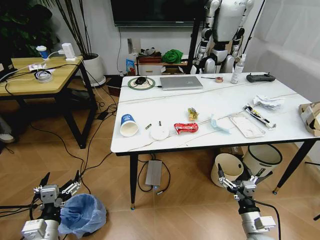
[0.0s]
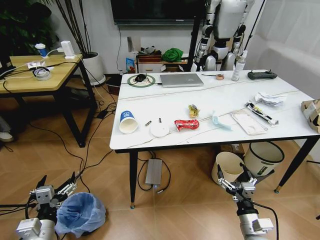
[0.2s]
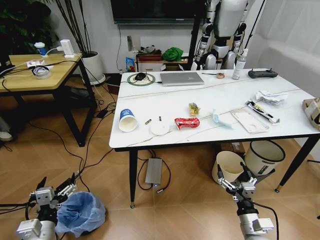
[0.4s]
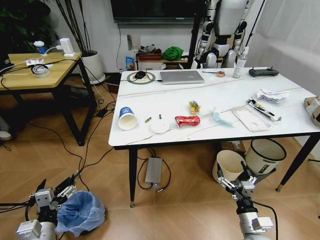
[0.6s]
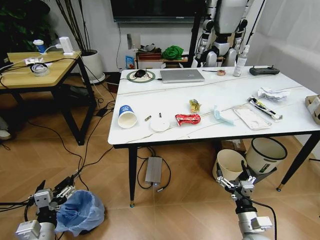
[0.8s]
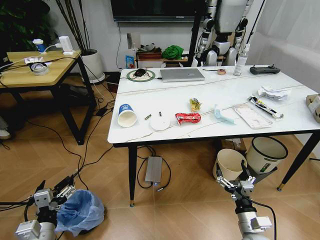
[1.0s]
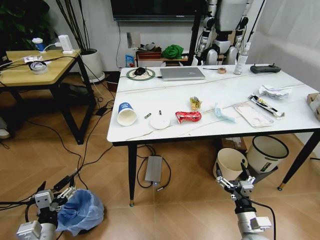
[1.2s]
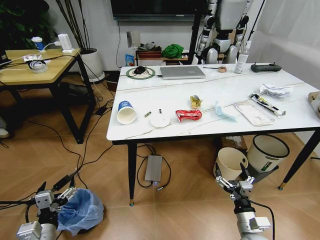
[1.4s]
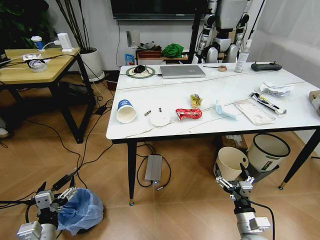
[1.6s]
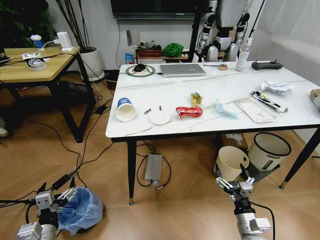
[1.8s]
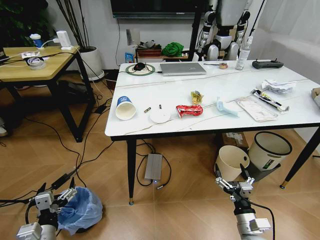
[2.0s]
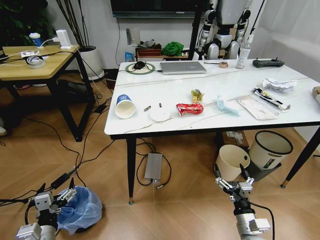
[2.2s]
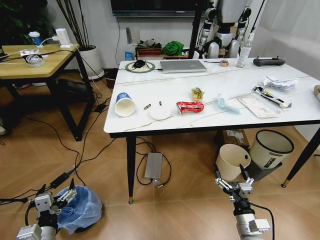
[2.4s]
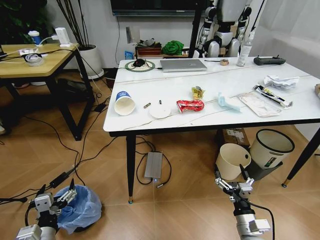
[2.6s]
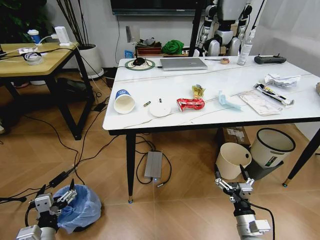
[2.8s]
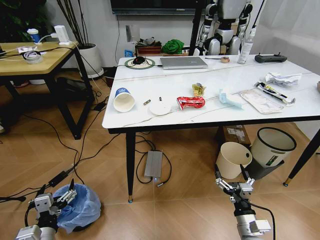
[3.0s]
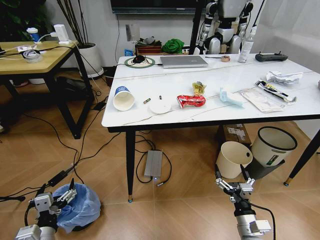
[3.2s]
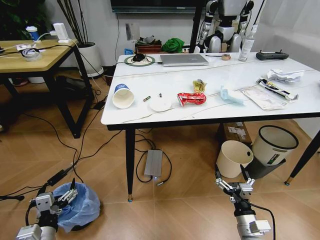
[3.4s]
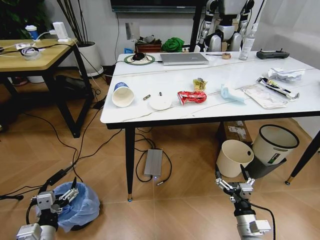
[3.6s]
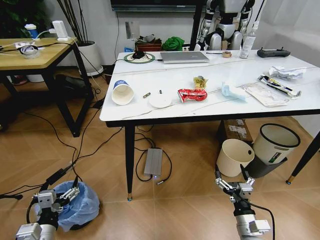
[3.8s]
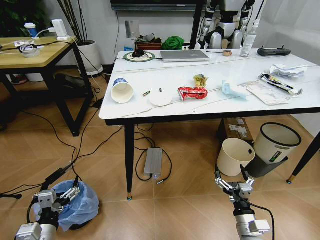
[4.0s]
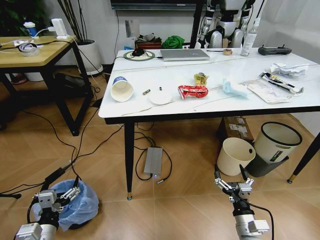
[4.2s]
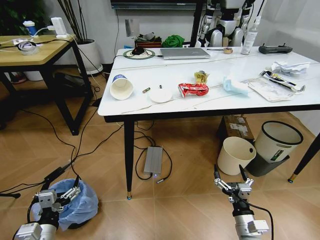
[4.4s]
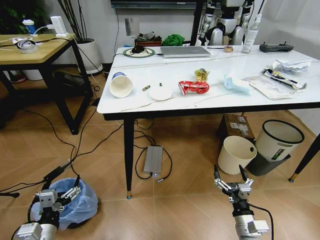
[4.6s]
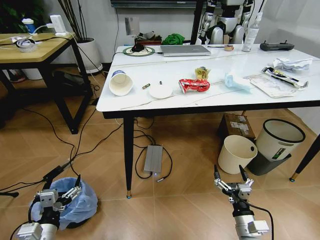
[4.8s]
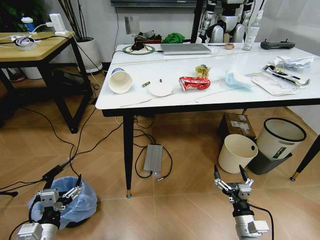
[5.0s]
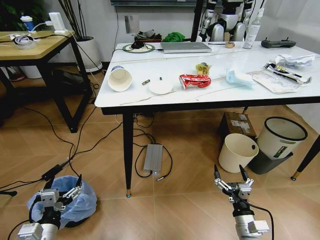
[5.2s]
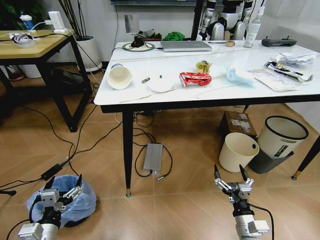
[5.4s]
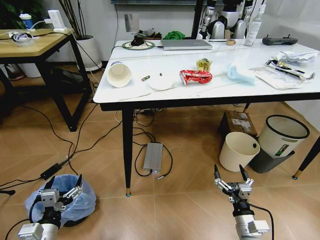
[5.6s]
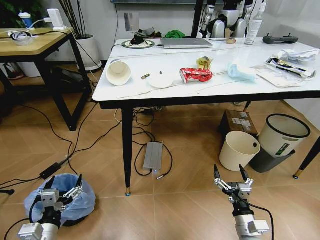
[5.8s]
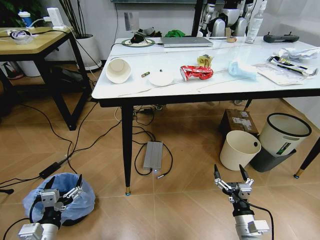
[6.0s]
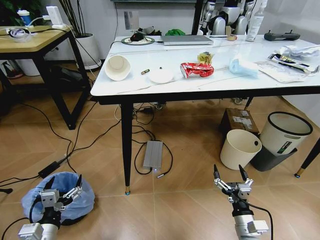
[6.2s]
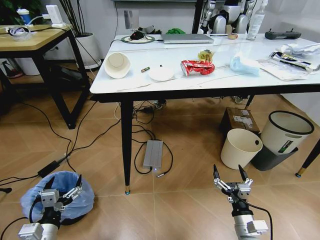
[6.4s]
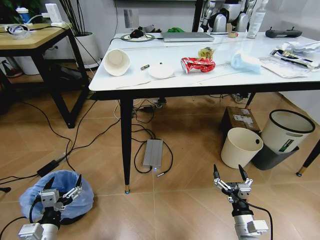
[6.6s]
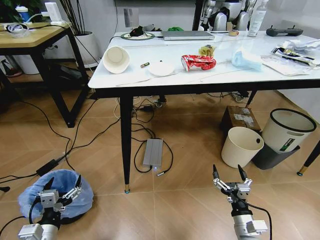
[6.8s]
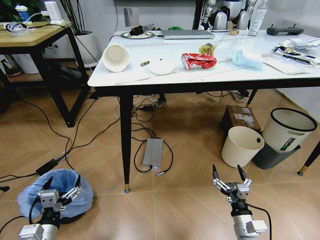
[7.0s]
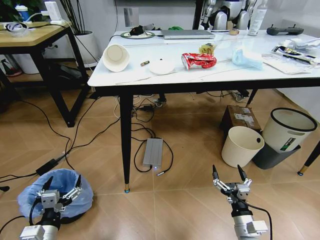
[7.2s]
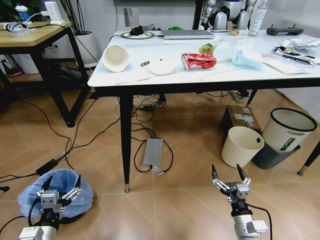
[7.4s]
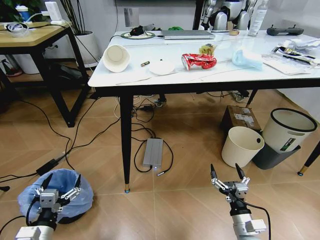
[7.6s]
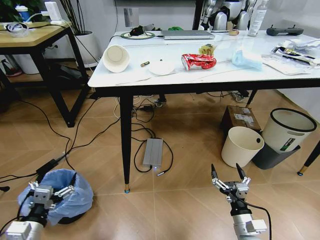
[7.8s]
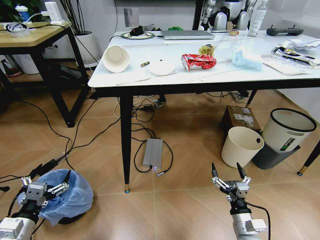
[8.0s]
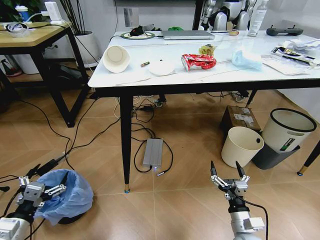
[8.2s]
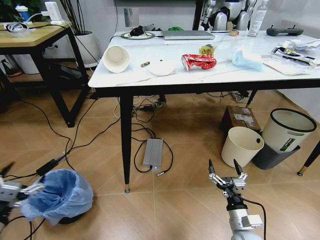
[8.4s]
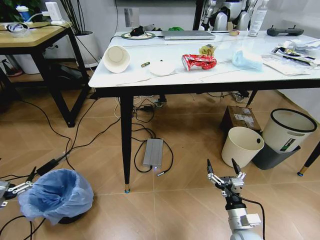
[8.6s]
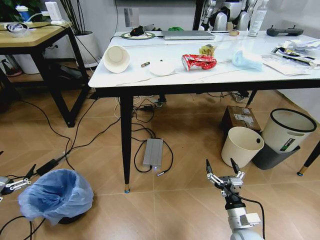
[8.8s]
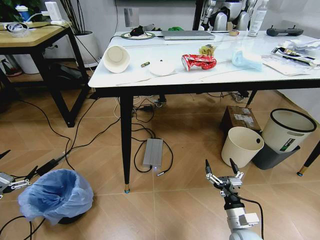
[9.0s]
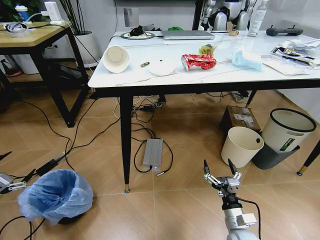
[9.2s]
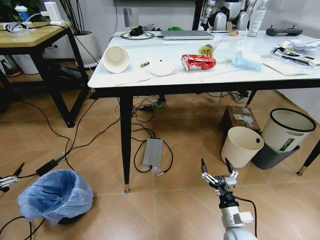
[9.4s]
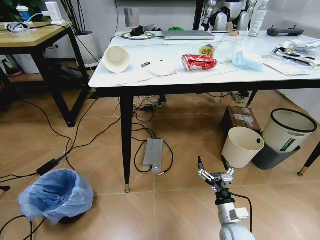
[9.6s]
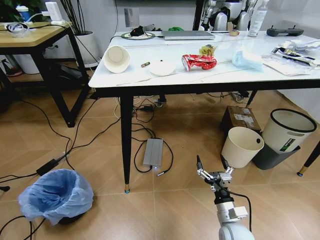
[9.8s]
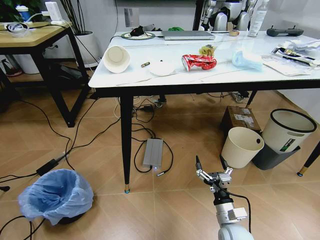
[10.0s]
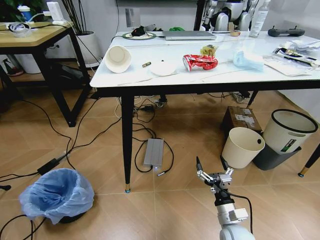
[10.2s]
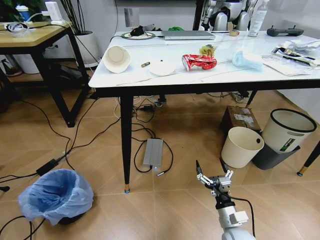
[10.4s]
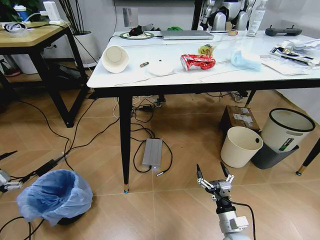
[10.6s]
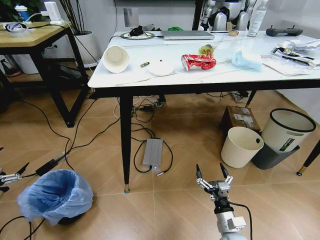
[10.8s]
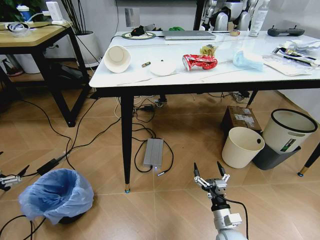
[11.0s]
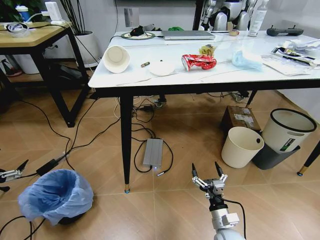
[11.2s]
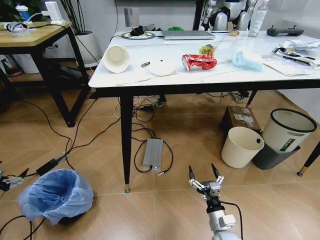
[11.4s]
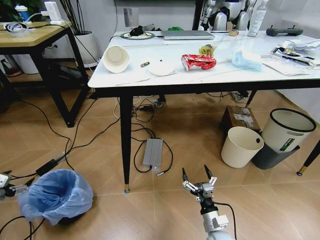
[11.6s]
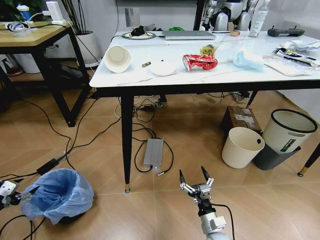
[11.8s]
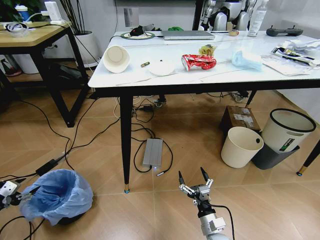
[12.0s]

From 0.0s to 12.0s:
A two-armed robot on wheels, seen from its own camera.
Task of the whole recording: Pick up the trash bin and place the trash from the table into it.
From 7.6s to 9.0s: The left gripper goes roughly 20 cm to the left and upward.
From 9.0s to 10.4s: The left gripper goes some 15 cm to the left and upward.
From 10.4s to 12.0s: The left gripper travels downward by approximately 15 cm. The right gripper moves to the left, roughly 5 cm.

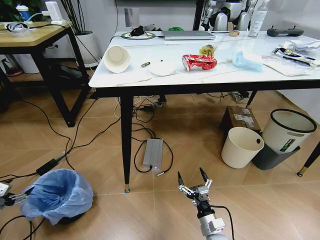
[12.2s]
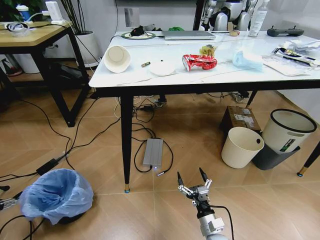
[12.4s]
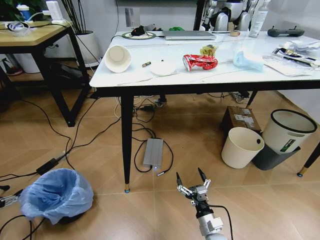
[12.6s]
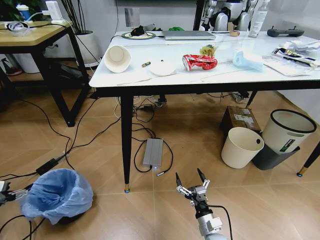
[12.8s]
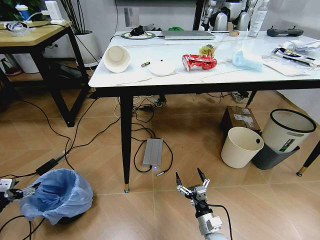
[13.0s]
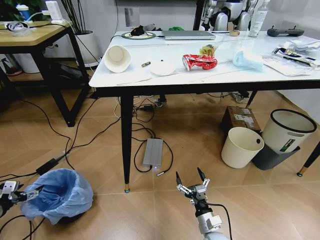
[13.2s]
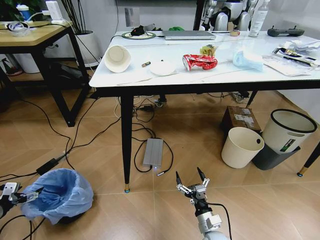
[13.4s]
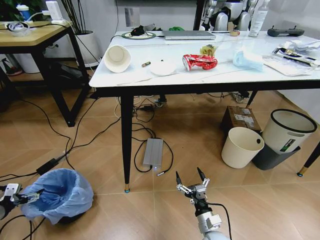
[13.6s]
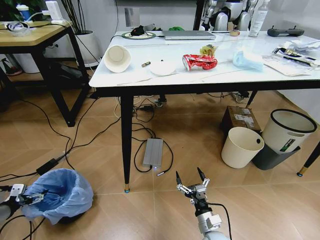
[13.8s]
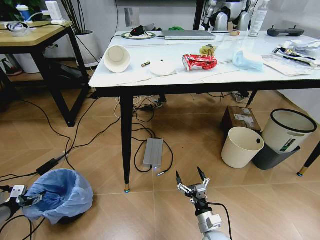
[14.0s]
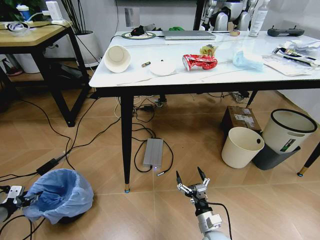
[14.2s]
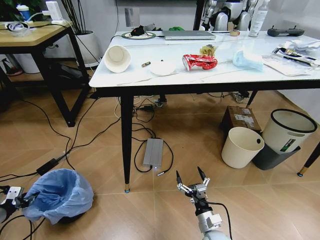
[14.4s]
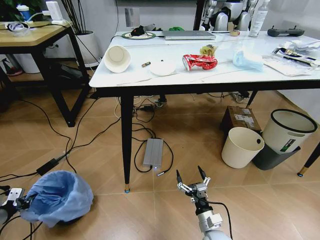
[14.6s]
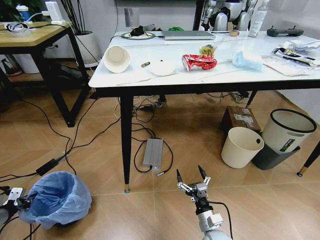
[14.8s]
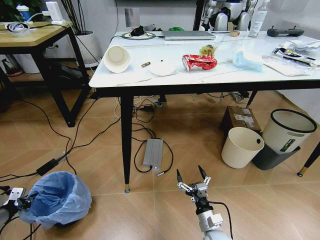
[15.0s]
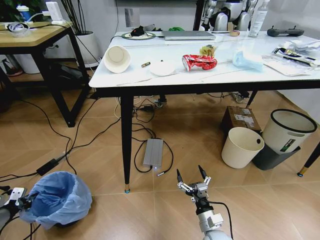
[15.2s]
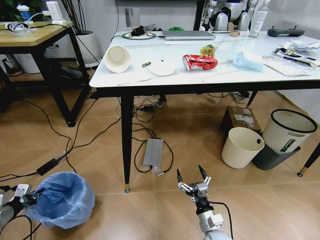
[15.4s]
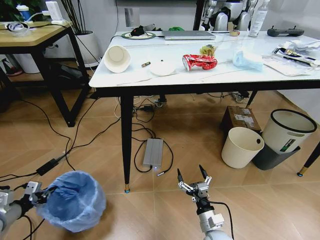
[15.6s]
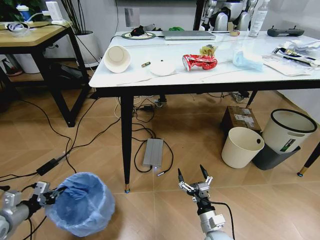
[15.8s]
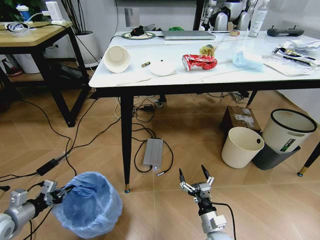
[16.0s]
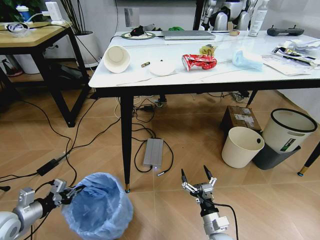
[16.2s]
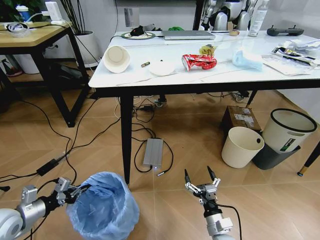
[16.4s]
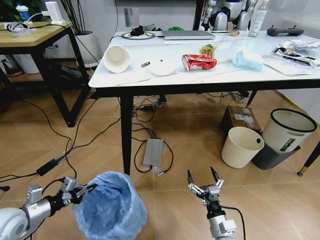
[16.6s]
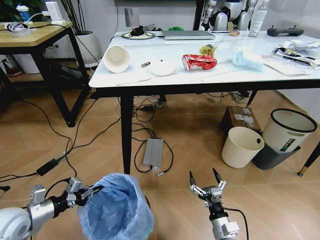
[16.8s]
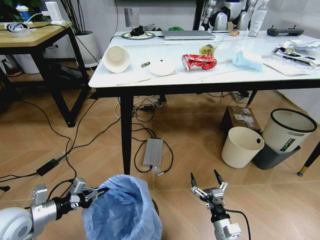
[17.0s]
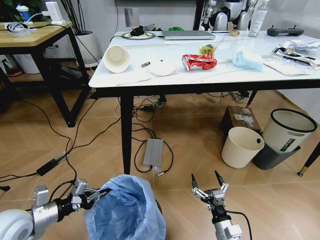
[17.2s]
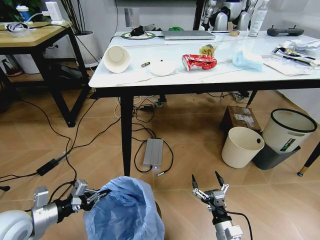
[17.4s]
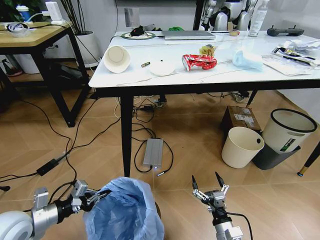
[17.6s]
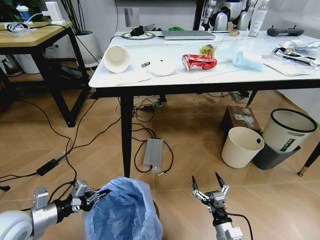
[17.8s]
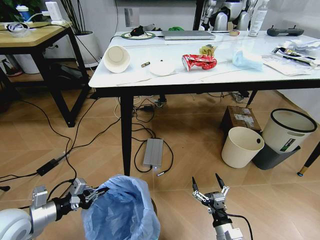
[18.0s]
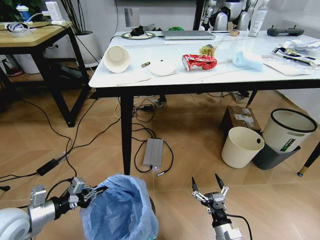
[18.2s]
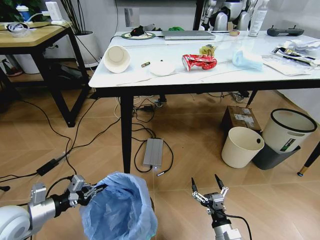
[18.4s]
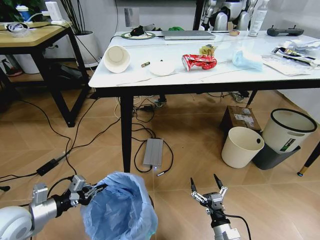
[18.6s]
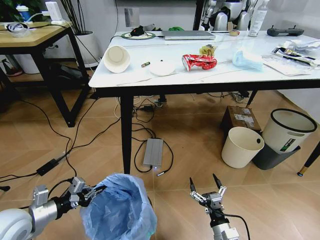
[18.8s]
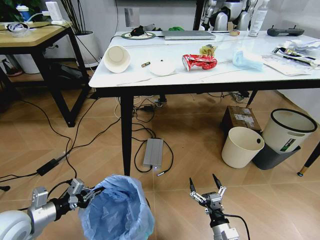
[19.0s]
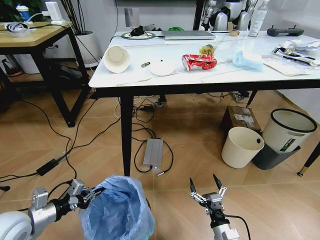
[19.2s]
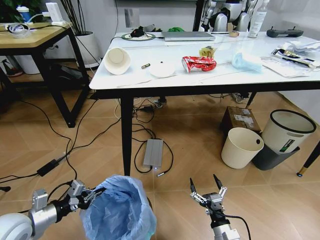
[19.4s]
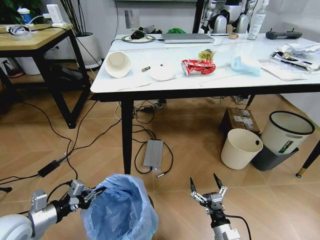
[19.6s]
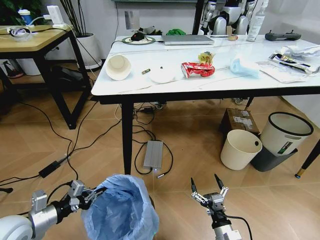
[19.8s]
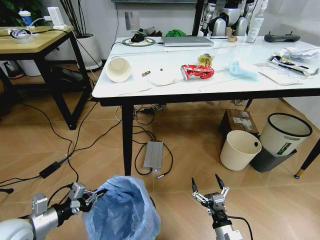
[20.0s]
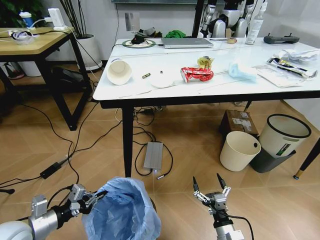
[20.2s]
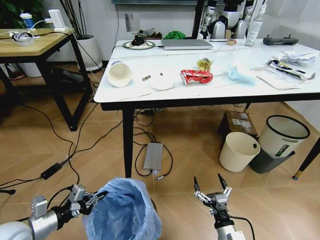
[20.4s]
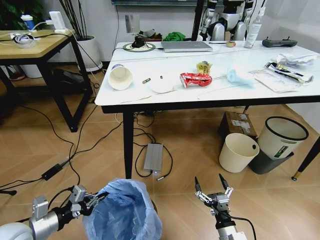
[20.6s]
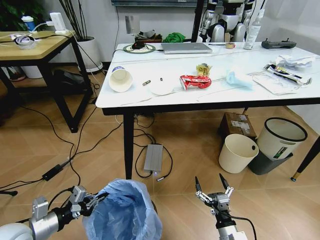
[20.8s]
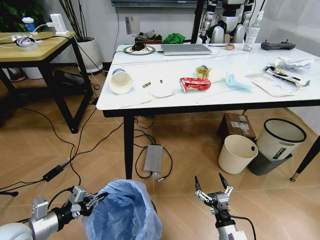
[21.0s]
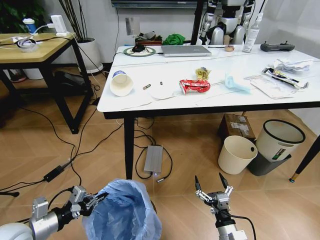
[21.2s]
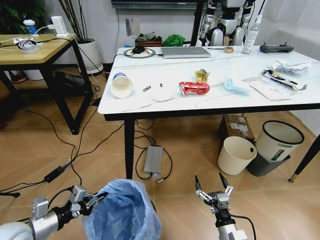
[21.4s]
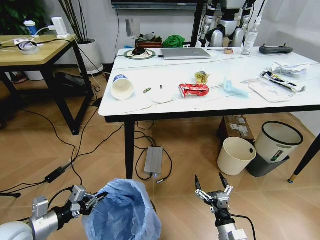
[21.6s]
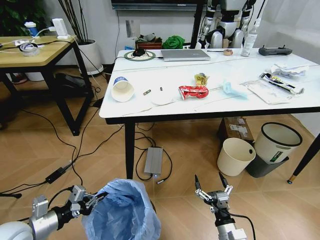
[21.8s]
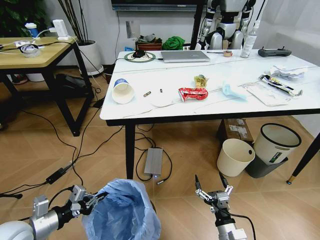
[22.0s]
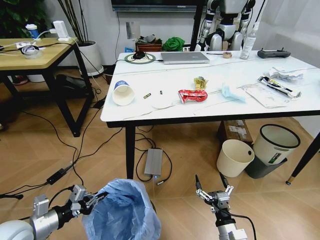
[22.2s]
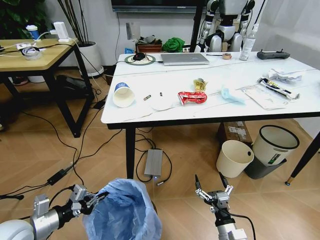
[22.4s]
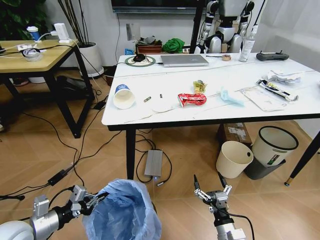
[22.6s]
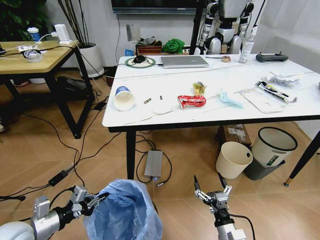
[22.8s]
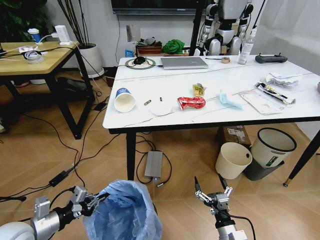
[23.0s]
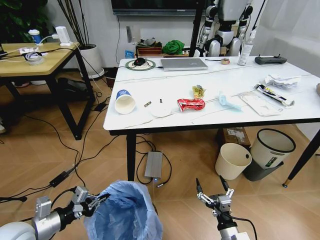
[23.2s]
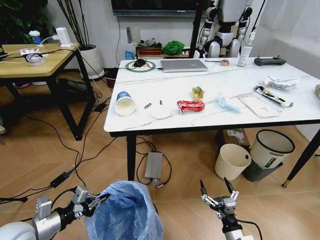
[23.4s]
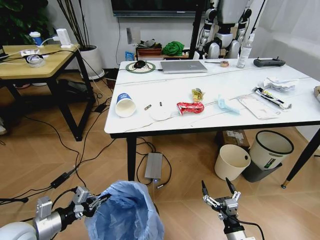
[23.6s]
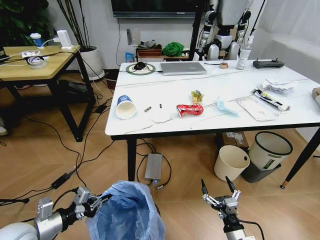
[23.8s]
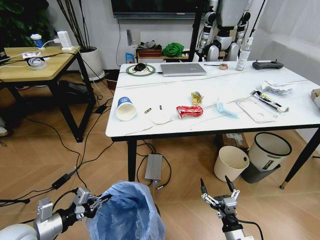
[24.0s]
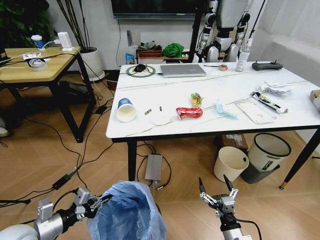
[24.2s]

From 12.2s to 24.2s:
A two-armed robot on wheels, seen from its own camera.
Task of the whole recording: Pick up the trash bin and place the trash from the table into it.
From 12.2s to 13.8s: The left gripper moves roughly 5 cm.
From 13.8s to 15.2s: The left gripper closes its fingers.
From 15.2s to 16.6s: The left gripper goes about 15 cm to the right and upward.
From 16.6s to 18.2s: There are only small adjustments of the grippers.
